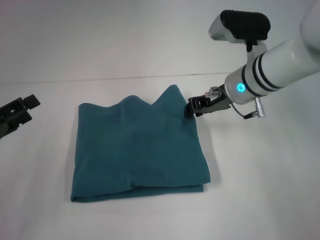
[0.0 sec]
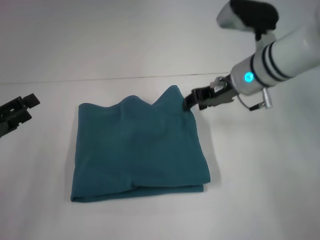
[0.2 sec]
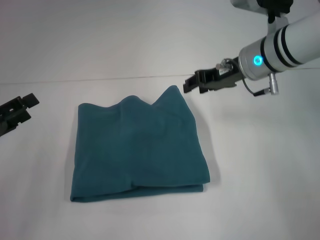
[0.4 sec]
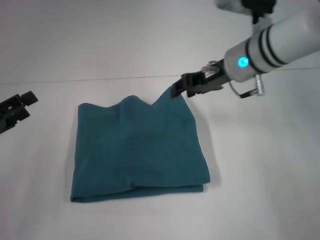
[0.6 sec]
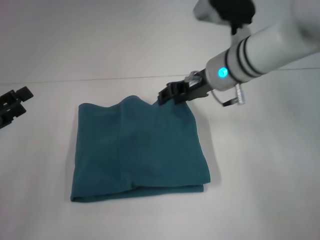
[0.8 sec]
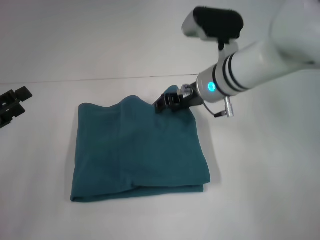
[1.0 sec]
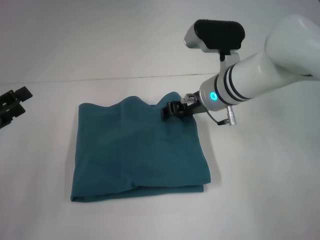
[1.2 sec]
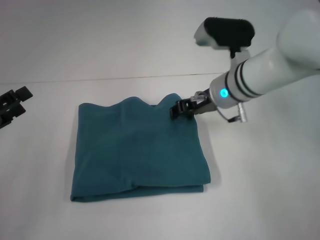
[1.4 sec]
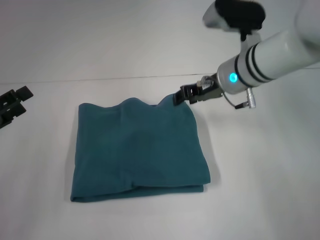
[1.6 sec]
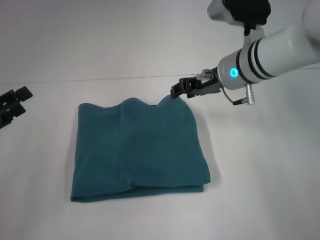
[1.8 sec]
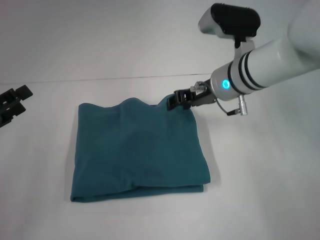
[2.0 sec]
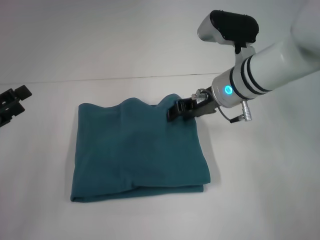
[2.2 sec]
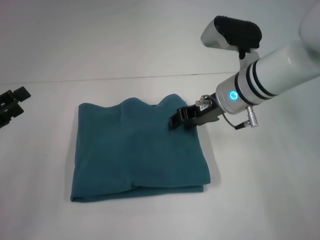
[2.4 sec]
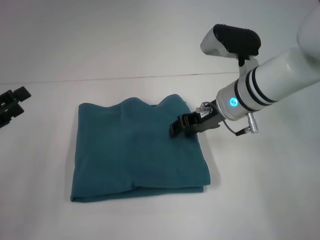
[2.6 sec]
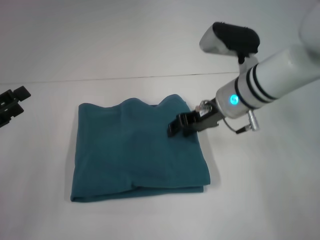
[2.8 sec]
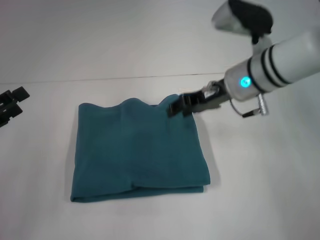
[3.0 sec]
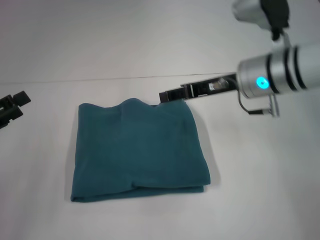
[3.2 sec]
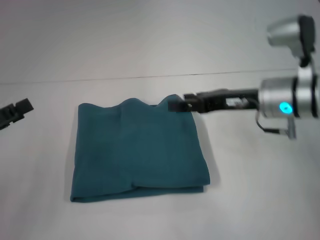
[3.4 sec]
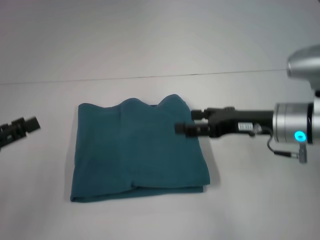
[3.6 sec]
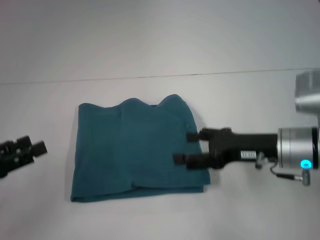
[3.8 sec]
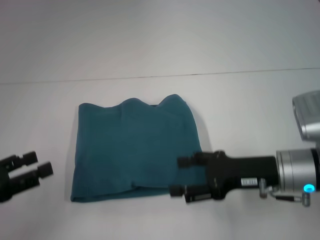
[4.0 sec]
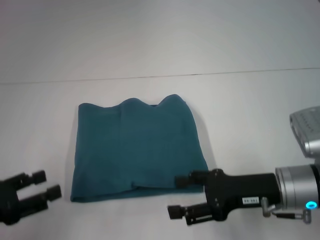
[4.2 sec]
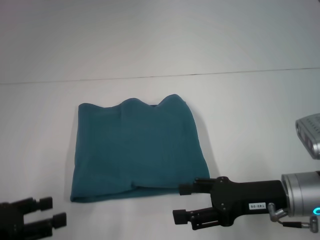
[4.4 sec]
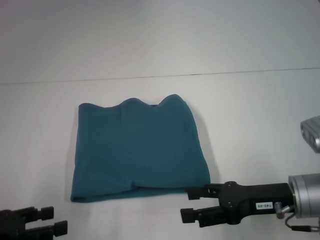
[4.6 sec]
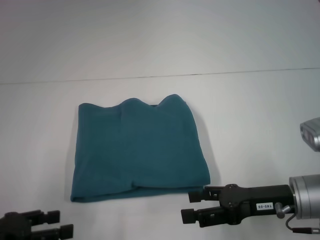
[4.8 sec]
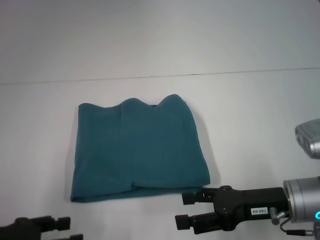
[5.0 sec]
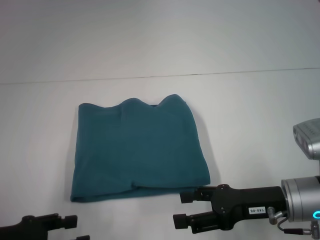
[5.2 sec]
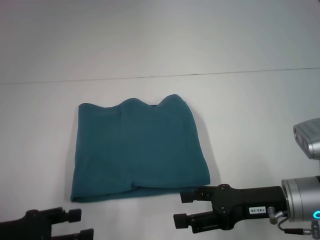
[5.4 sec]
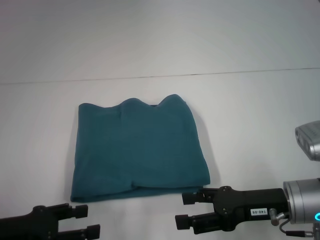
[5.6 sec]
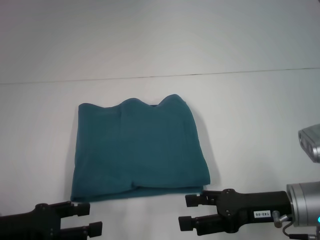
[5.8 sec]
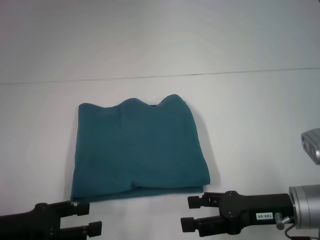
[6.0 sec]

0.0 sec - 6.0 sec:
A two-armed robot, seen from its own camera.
0.0 sec - 1.6 sec: The right gripper opens its fingers.
1.6 sec - 3.0 sec: There are only small adjustments of the grippers.
3.0 sec - 4.4 sec: The left gripper goes roughly 5 cm backward; the right gripper goes roughly 20 cm backward, downward and to the right, and opens up.
4.4 sec - 6.0 sec: The grippers make only small movements.
